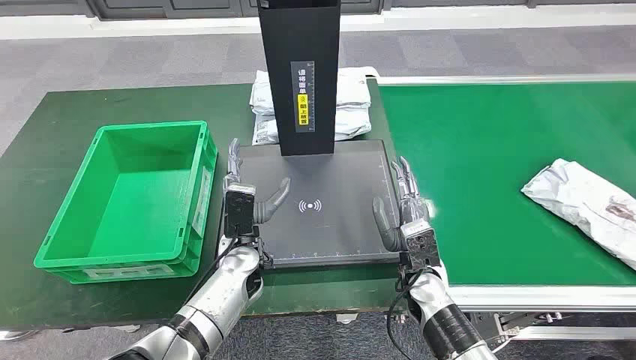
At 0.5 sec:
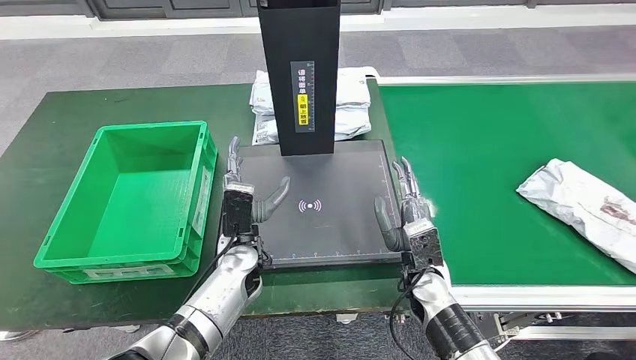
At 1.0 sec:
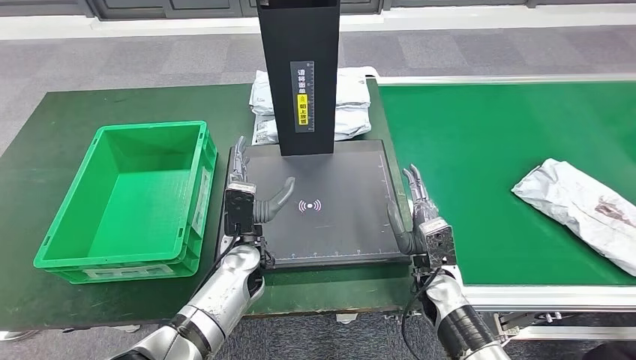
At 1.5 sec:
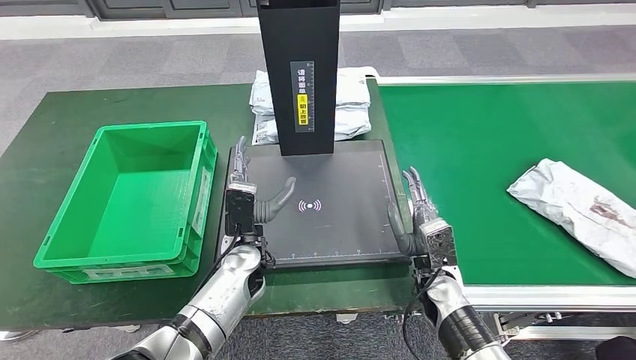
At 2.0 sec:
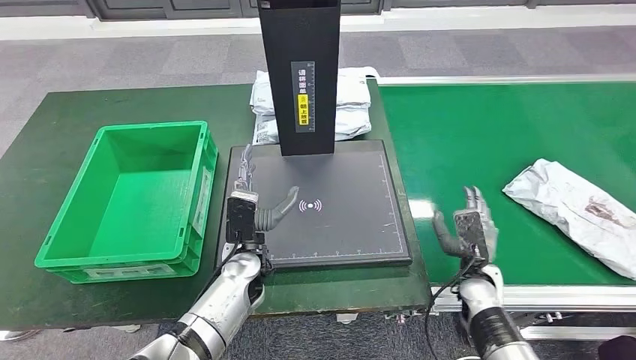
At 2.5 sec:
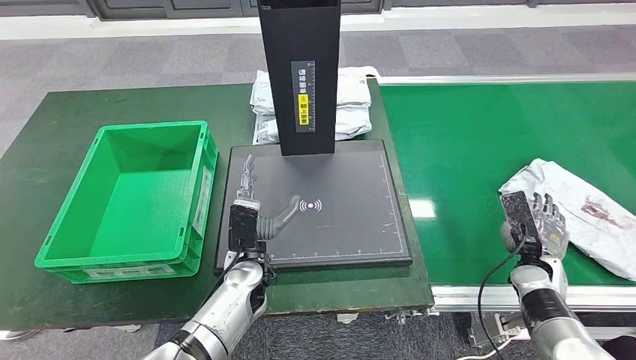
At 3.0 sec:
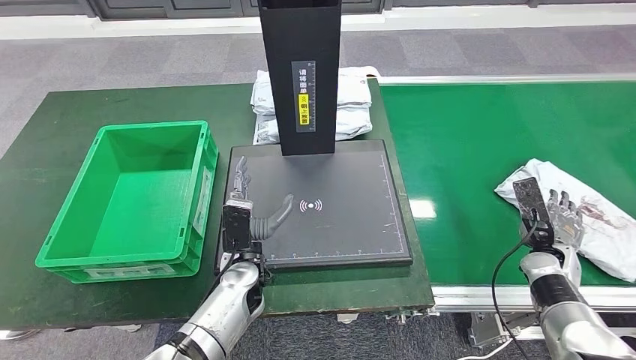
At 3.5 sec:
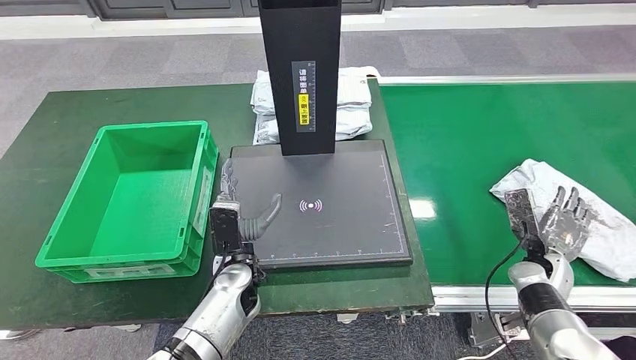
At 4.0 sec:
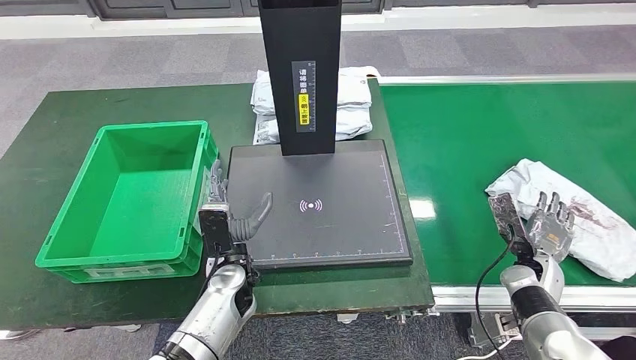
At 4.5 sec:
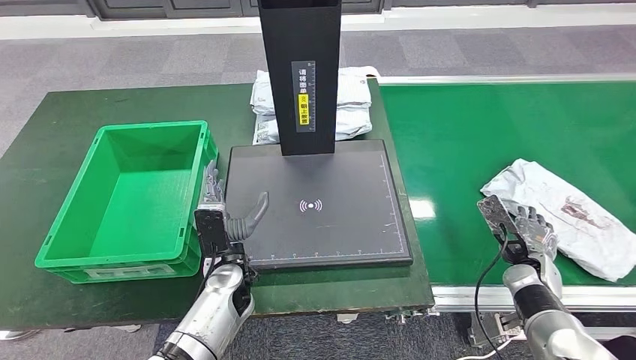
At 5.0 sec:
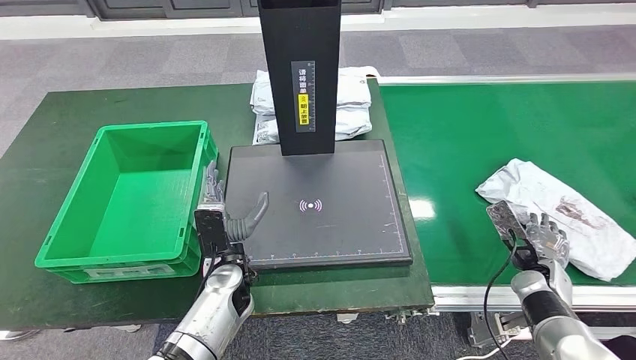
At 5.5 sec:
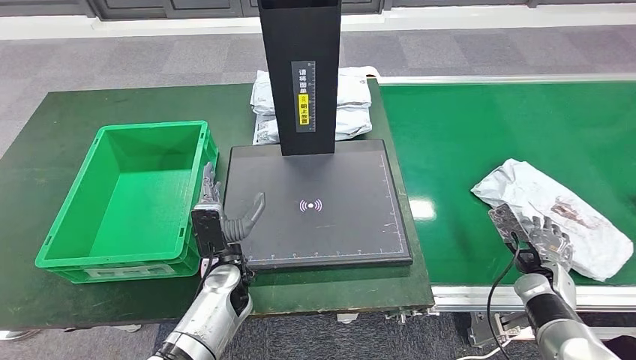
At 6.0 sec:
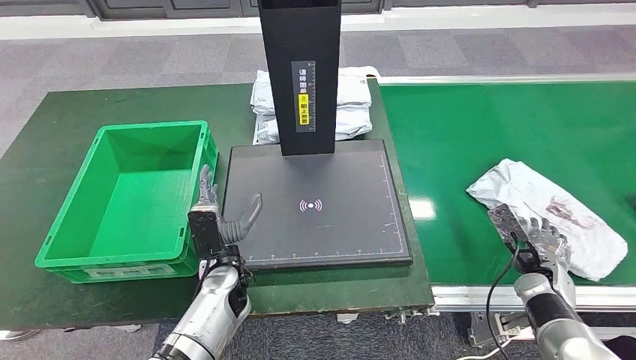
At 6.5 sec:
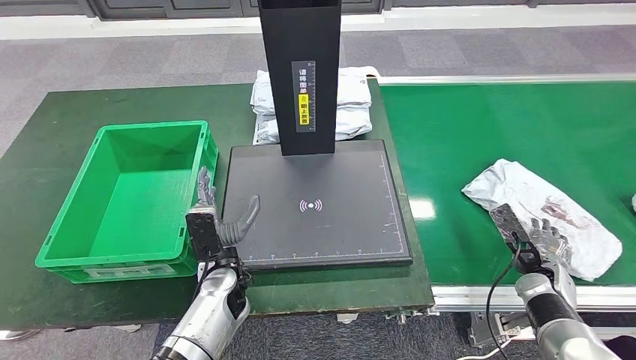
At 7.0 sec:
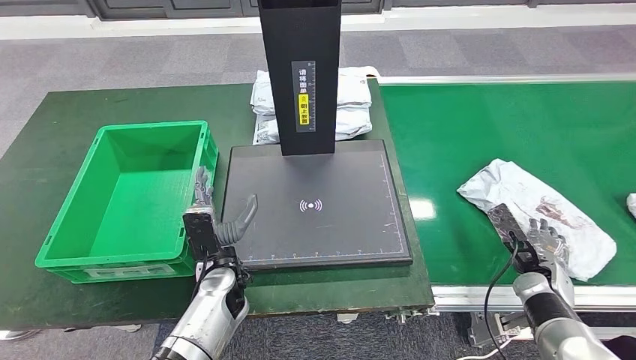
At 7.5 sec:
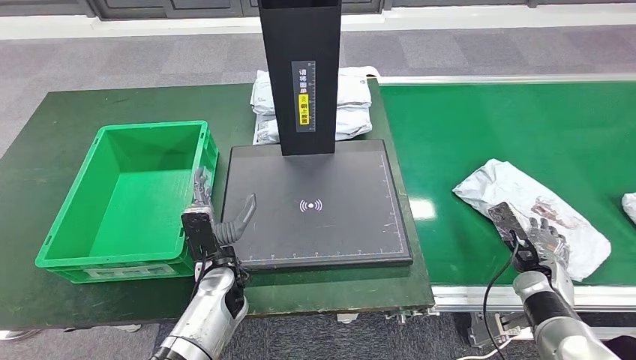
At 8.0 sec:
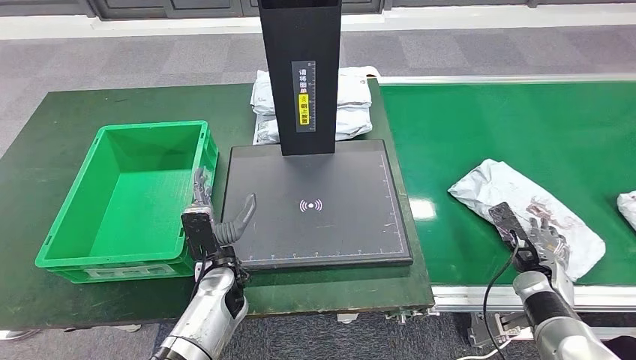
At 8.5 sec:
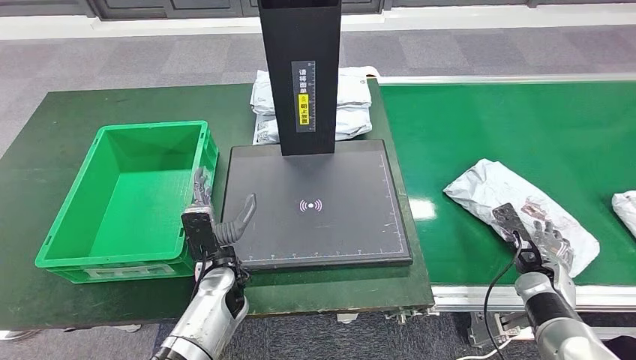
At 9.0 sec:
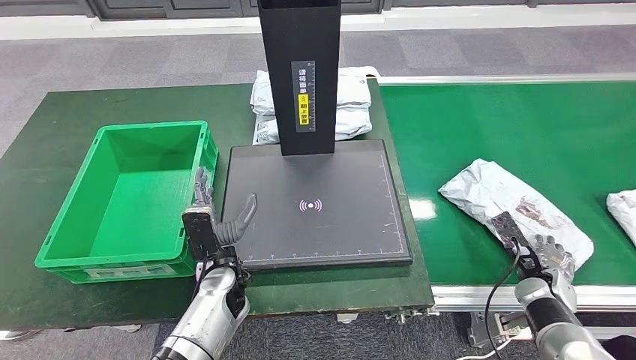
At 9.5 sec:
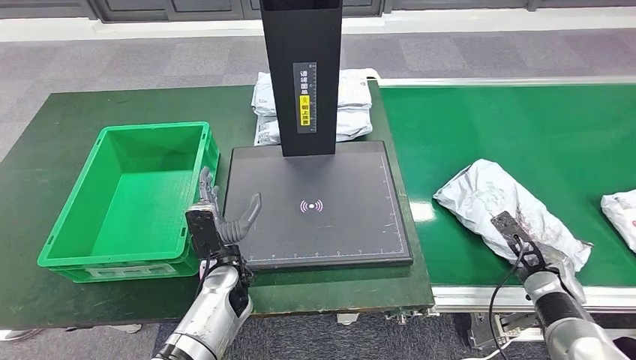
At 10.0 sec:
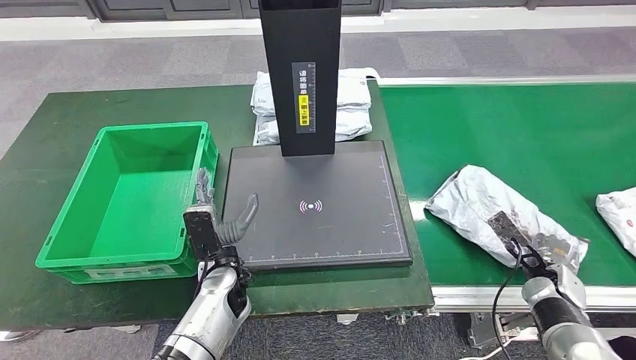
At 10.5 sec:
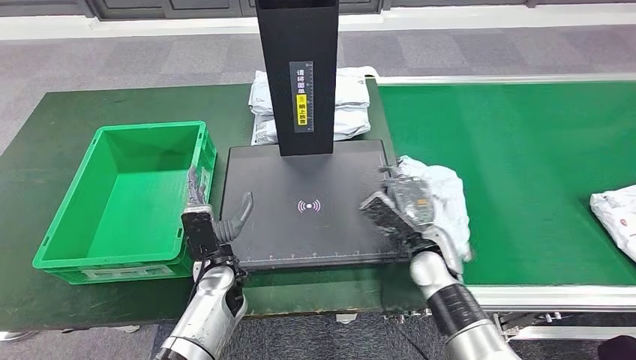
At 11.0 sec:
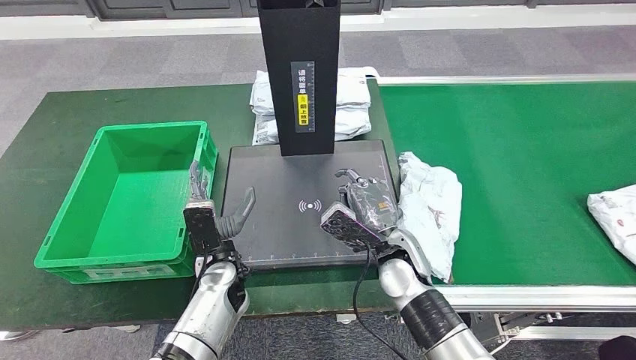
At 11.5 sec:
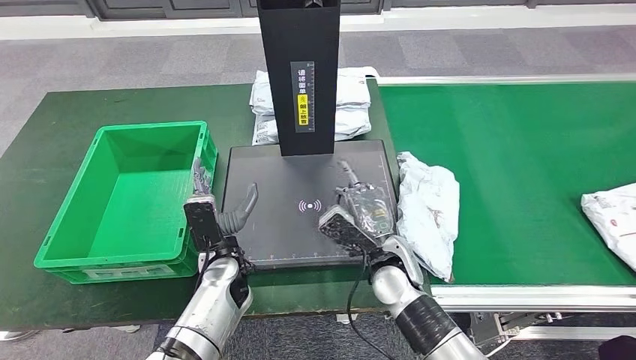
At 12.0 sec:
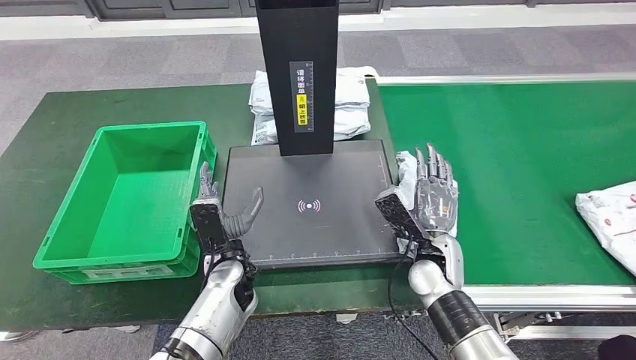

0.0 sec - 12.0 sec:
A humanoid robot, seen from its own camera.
2.0 sec - 4.0 sec: The right hand is displaced to the right by some 10 cm.
6.0 sec - 8.0 sec: Both hands stay about where they are.

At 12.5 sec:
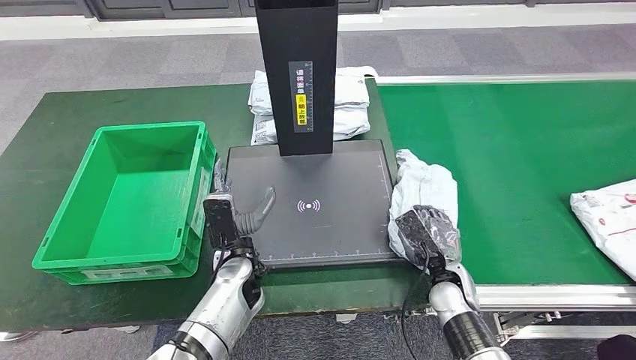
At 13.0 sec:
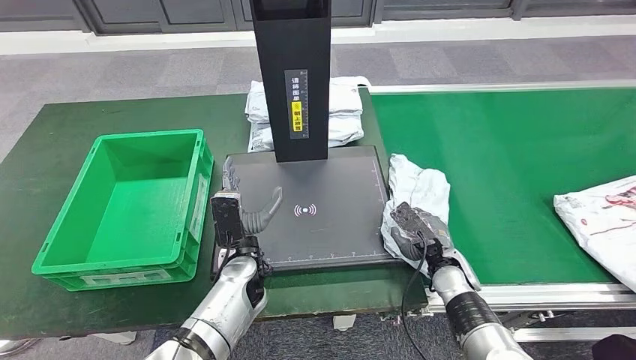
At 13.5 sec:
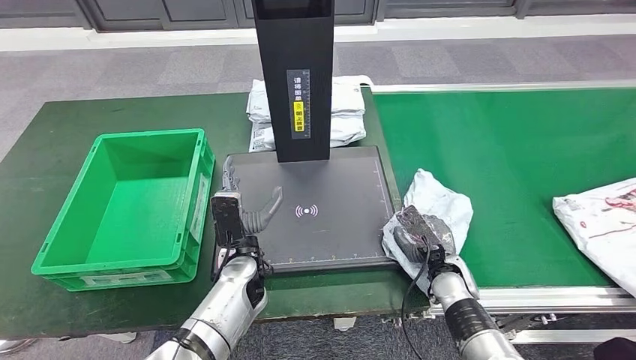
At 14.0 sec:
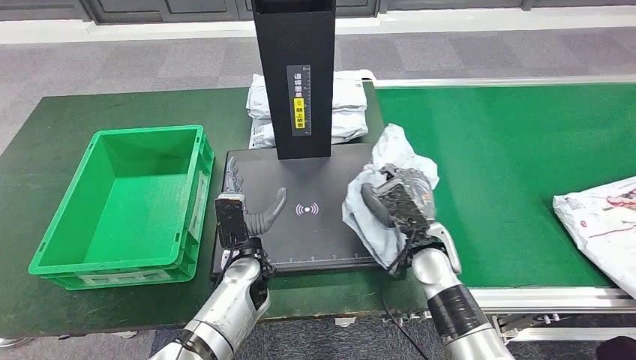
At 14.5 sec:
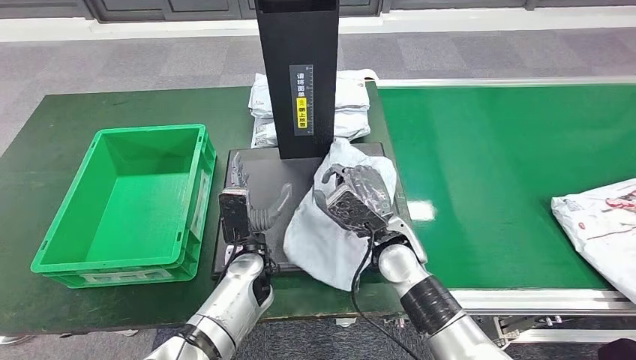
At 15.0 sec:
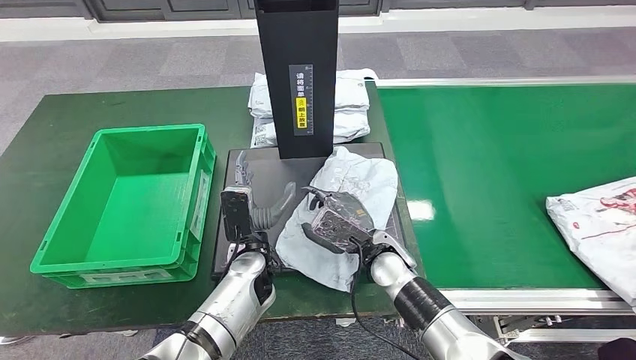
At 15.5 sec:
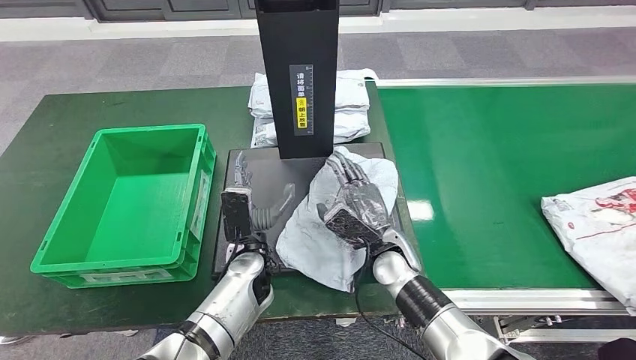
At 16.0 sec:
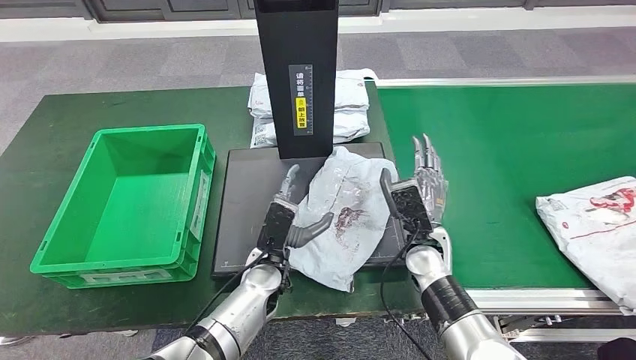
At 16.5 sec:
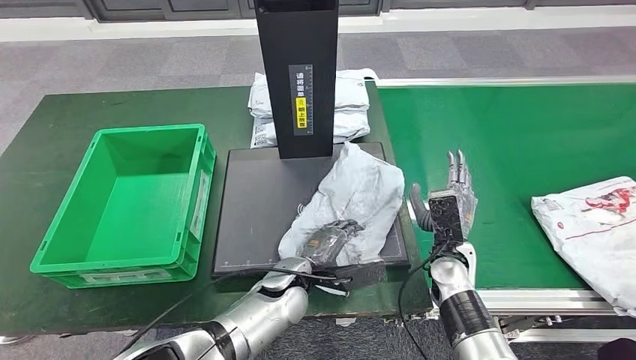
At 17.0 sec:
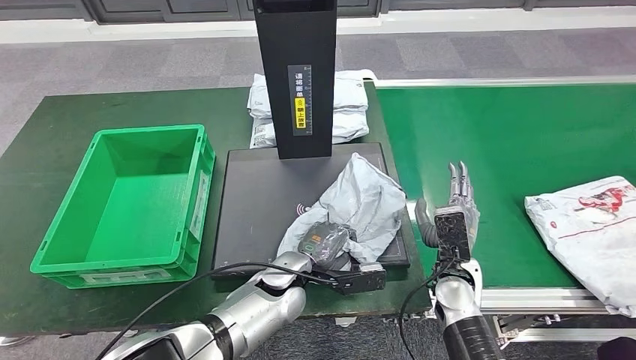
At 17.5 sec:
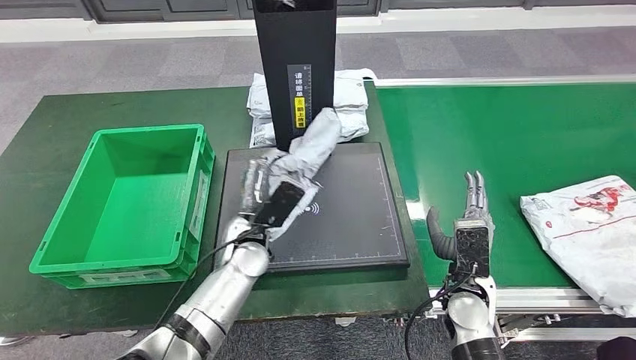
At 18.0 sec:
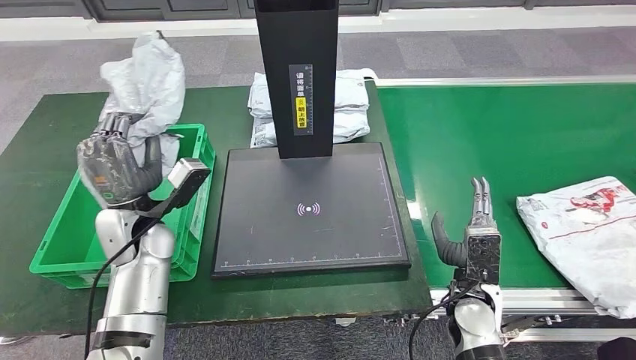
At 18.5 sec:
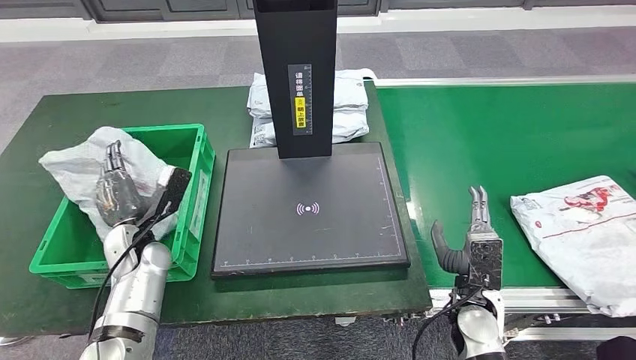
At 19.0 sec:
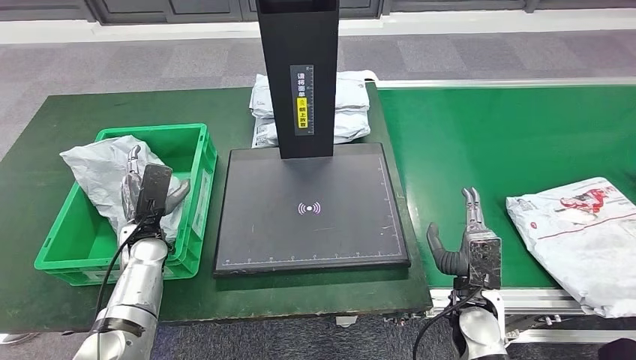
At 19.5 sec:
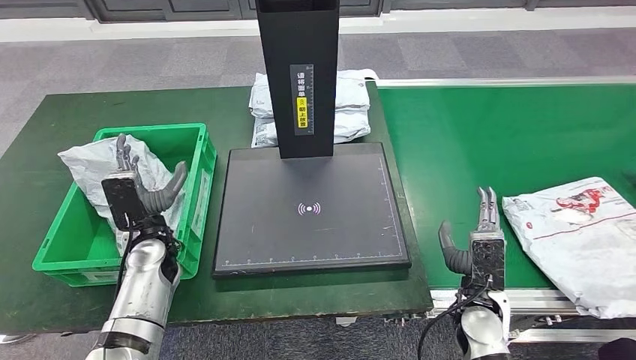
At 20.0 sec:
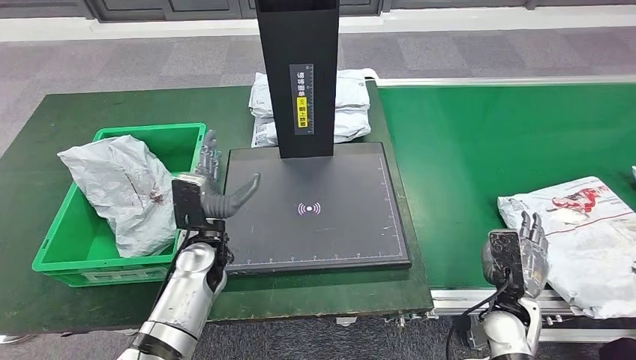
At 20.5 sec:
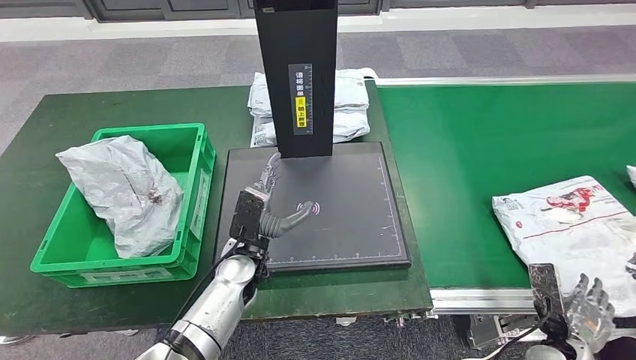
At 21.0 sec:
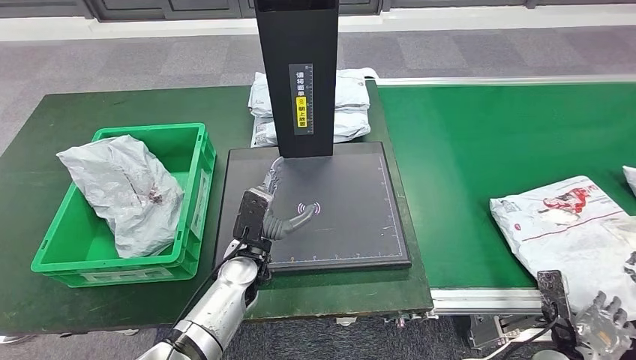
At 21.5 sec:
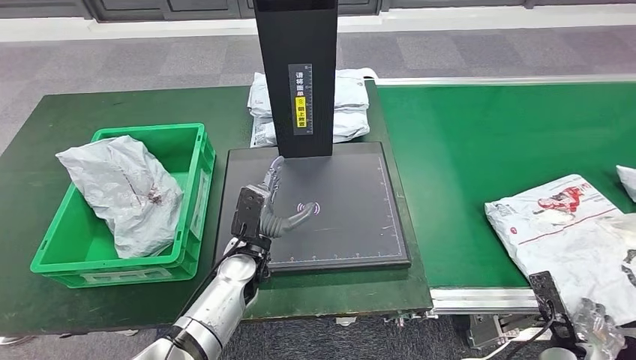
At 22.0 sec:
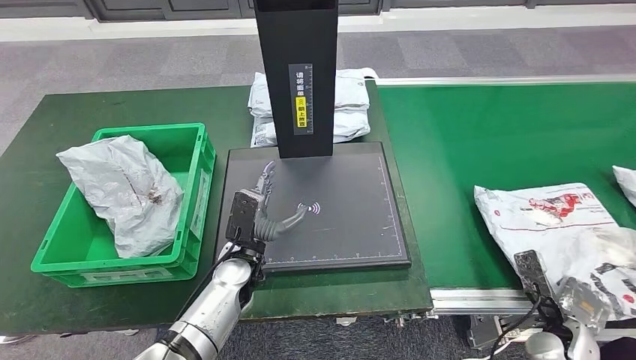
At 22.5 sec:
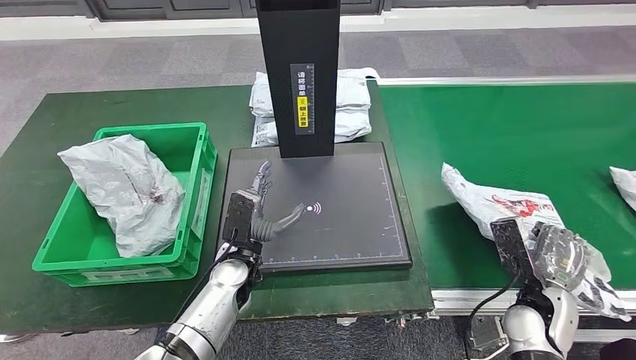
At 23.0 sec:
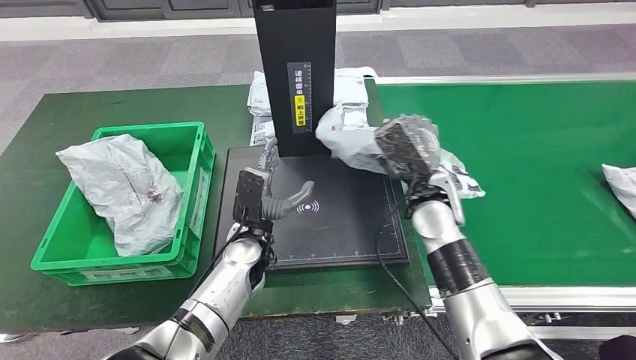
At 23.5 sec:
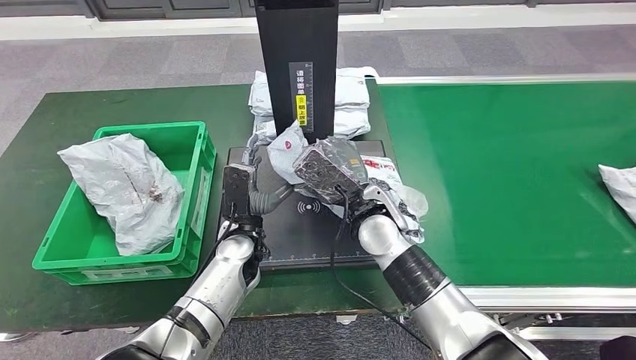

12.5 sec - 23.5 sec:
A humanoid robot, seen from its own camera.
Step, 14.5 sec - 16.5 sec: Place the parcel onto the inbound machine.
Step, 17.0 sec - 18.0 sec: Pick up the parcel from the inbound machine.
Step, 18.5 sec - 20.5 sec: Put the parcel inside the courier box.
Step, 21.0 sec - 23.0 sec: Pick up the parcel from the conveyor belt.
14.5 sec - 16.0 sec: The right hand moves to the right, about 5 cm.
20.0 sec - 21.5 sec: The right hand moves to the right, downward and backward, about 15 cm; the left hand goes some 5 cm to the right.
